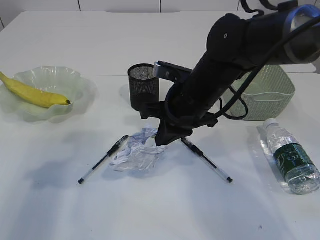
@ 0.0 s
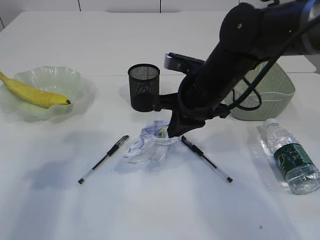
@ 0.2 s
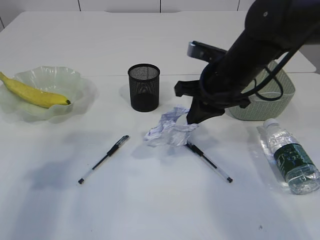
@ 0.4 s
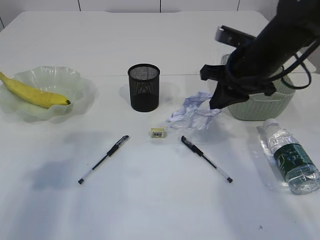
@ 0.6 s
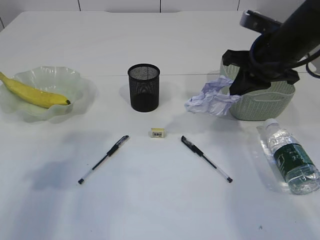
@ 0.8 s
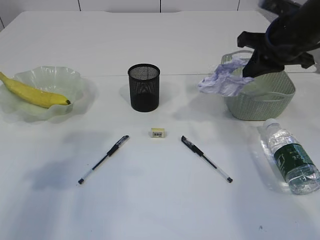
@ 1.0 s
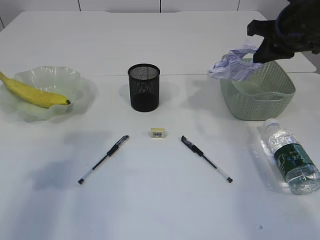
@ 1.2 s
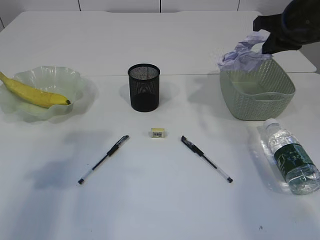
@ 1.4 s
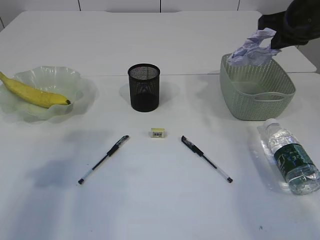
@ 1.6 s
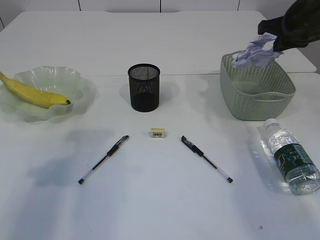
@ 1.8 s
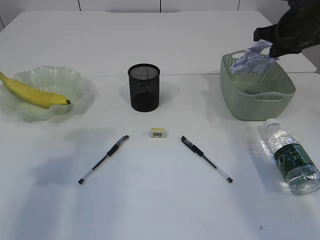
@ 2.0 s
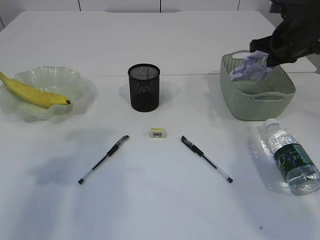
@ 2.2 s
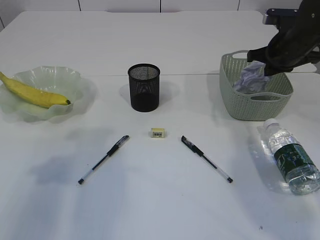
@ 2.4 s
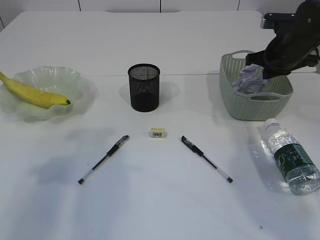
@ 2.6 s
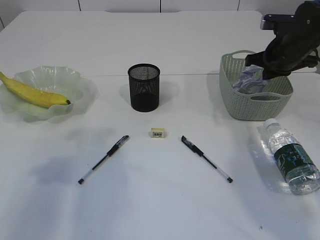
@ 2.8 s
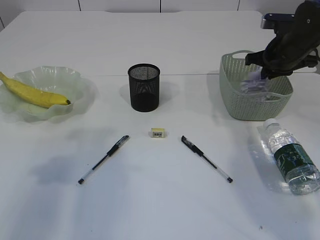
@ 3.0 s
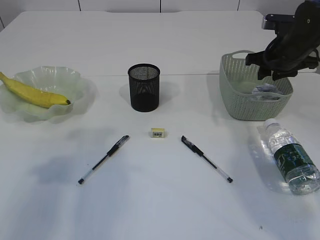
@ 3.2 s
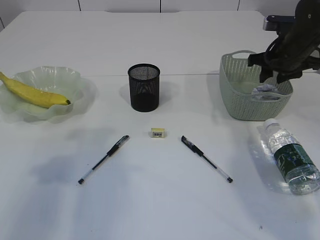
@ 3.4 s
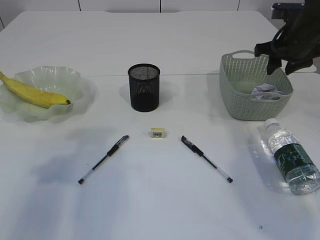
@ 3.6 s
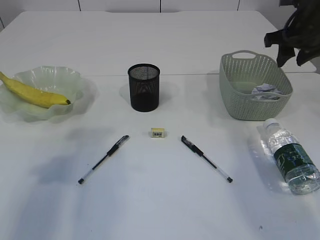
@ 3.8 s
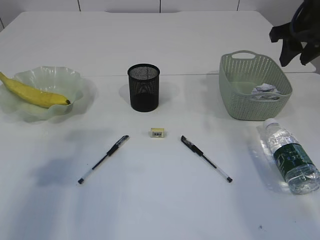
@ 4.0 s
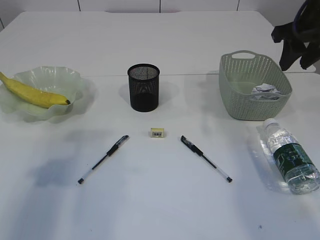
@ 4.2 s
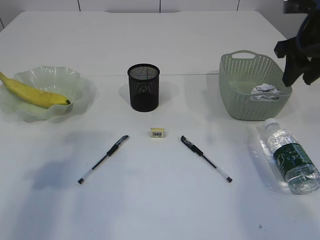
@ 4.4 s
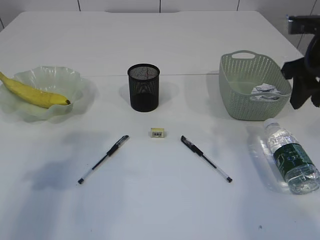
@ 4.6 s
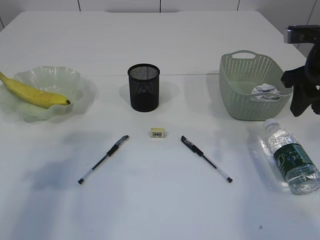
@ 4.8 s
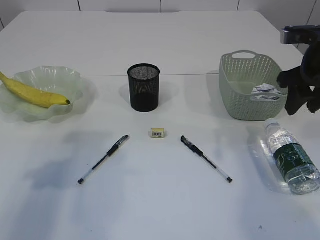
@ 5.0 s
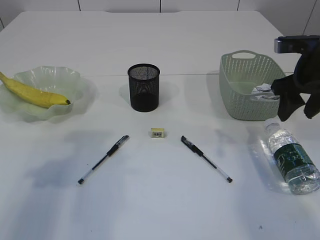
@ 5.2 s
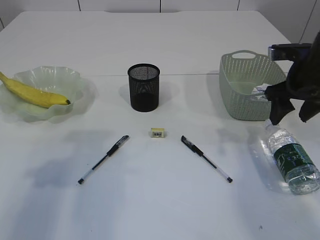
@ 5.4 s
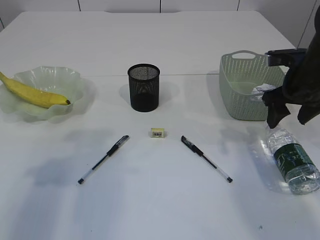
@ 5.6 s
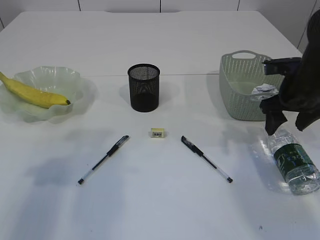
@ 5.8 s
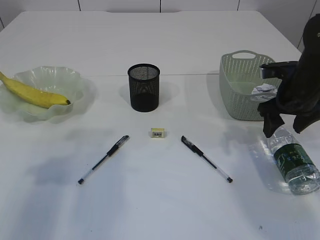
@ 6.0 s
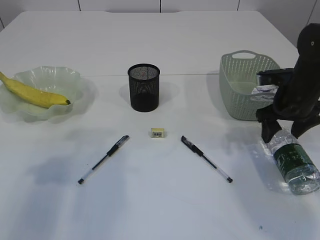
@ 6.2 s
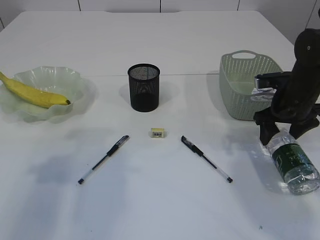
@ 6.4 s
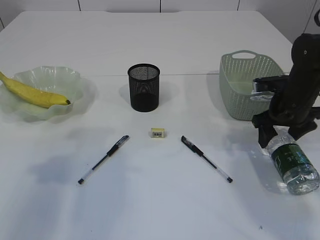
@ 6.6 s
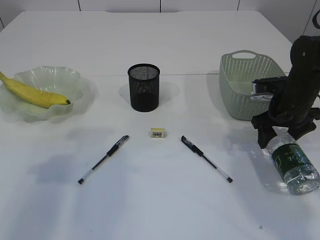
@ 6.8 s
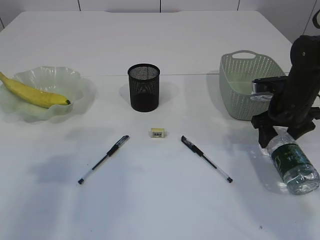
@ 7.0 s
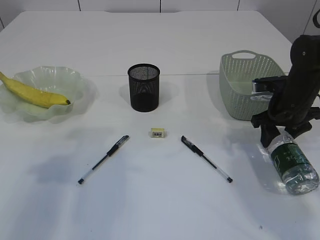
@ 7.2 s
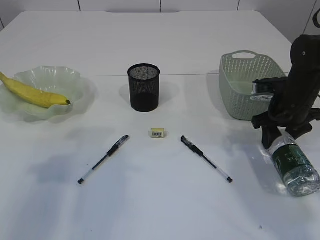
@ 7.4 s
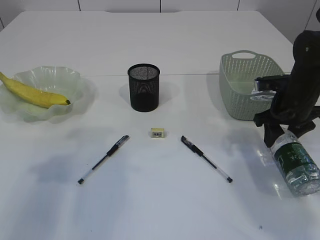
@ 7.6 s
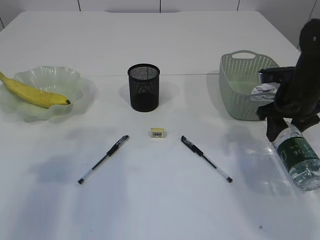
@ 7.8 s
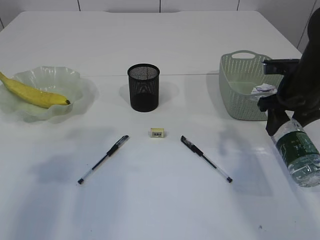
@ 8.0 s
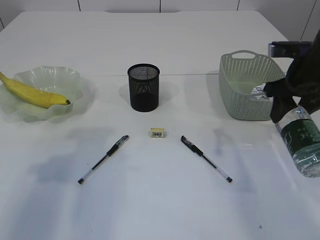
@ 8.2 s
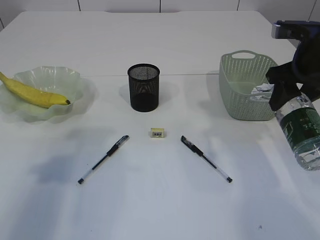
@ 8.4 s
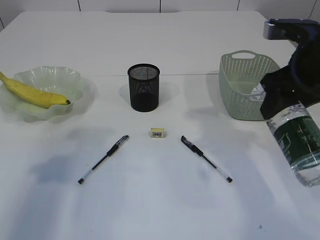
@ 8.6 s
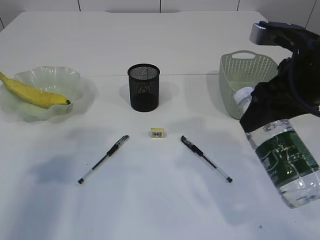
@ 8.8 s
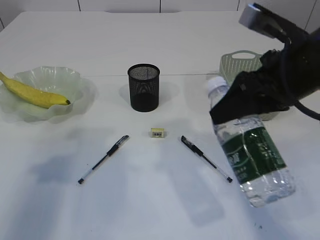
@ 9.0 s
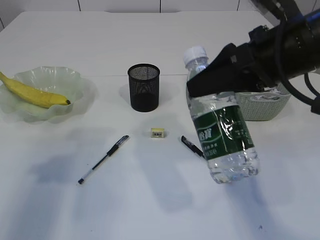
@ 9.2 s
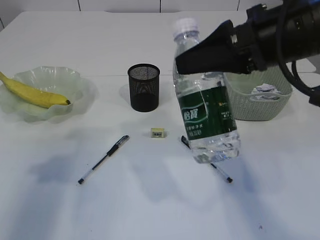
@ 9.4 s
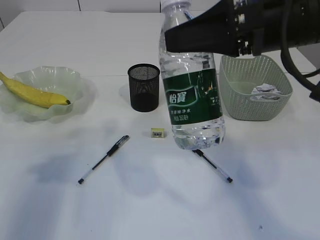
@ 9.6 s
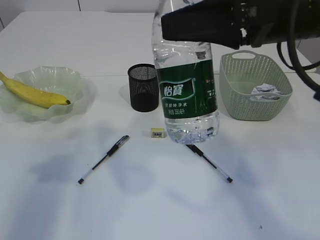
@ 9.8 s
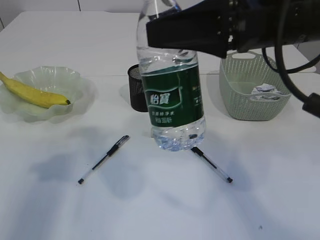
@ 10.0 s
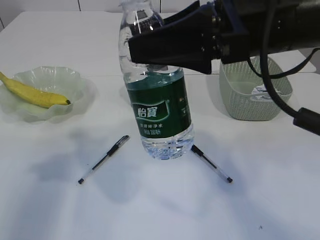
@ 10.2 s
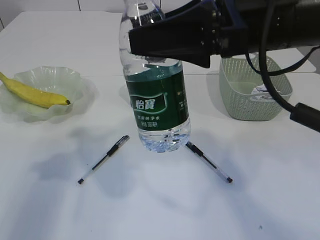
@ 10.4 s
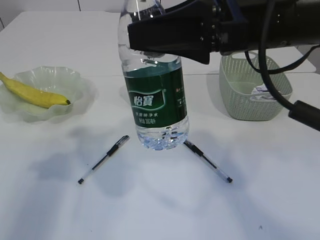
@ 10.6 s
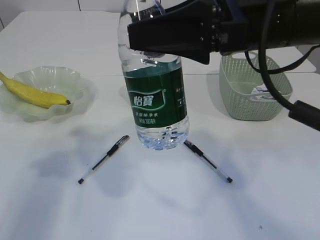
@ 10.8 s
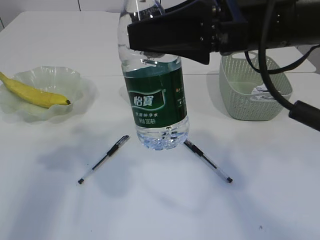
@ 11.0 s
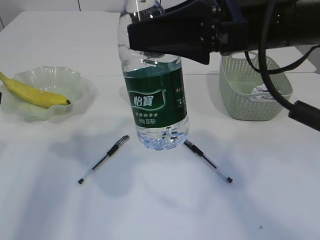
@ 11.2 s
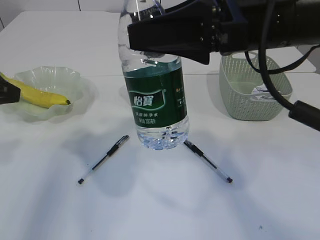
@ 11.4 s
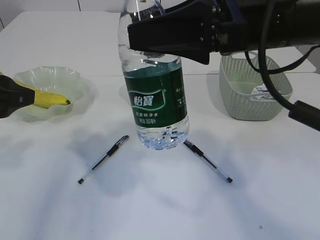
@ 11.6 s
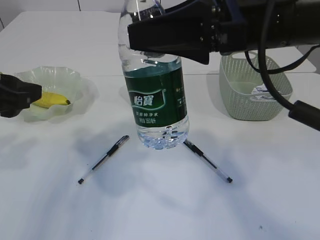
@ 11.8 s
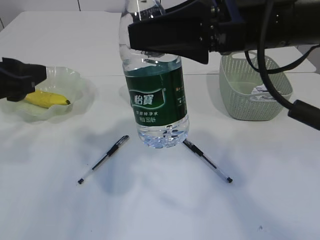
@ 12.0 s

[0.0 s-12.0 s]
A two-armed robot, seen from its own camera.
Step, 0.4 to 3.6 s: Place the waste paper in the basket.
Step, 3.8 to 8.4 s: Pick up the bottle with the right arm.
0.0 to 1.6 s: The right gripper is displaced to the right and upward by approximately 25 cm.
1.6 to 3.0 s: The right gripper travels downward by some 10 cm.
3.0 to 4.4 s: The right gripper heads upward and backward, covering about 10 cm, and opens its fingers.
4.4 to 6.0 s: The right gripper shifts about 10 cm downward, and opens up.
6.0 to 7.6 s: The grippers move only a little.
7.6 to 9.0 s: The right gripper shifts about 20 cm upward, backward and to the left.
9.0 to 10.4 s: The right gripper is displaced to the left by roughly 5 cm.
10.4 to 12.0 s: The left gripper goes approximately 5 cm to the right.

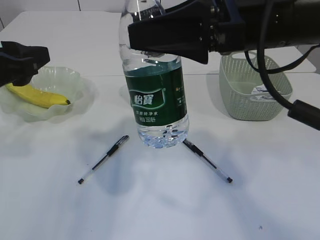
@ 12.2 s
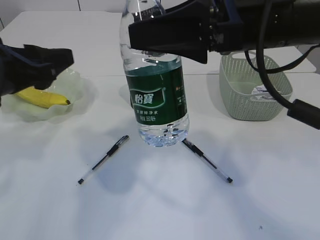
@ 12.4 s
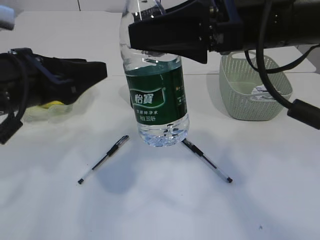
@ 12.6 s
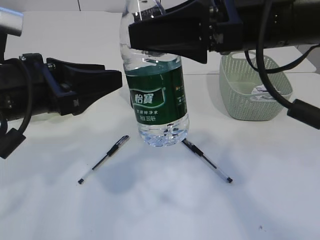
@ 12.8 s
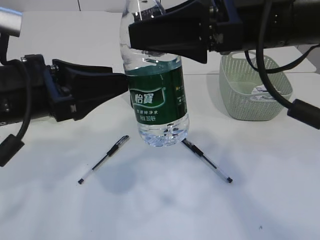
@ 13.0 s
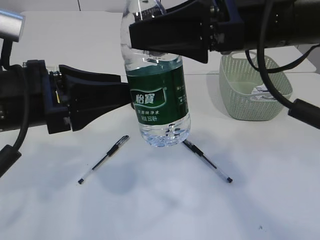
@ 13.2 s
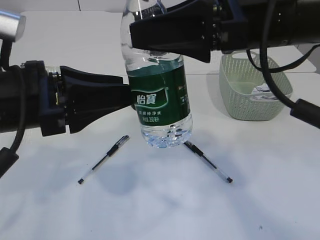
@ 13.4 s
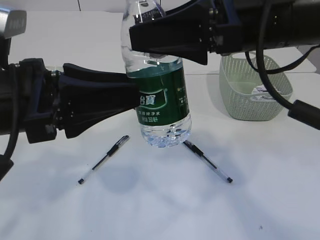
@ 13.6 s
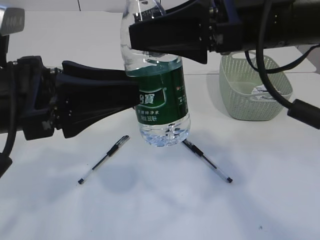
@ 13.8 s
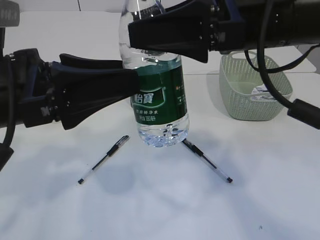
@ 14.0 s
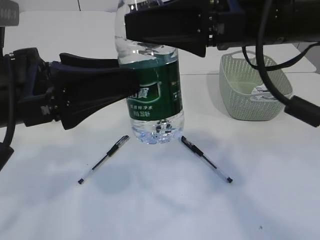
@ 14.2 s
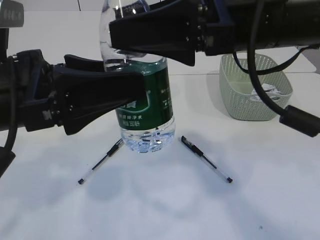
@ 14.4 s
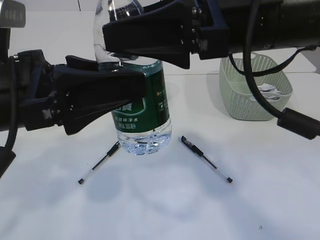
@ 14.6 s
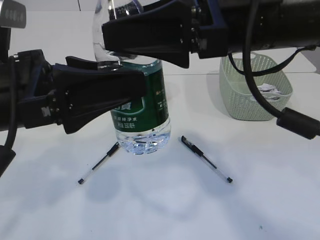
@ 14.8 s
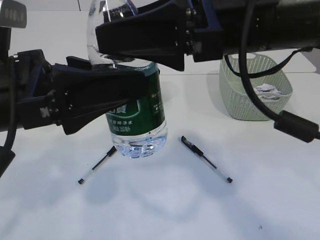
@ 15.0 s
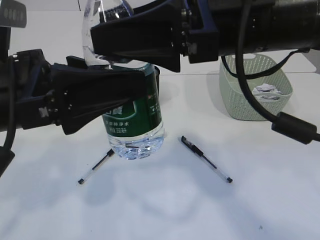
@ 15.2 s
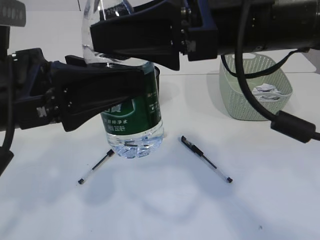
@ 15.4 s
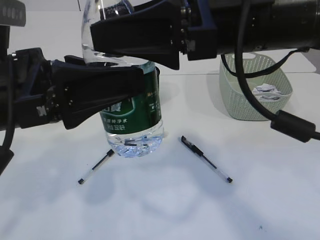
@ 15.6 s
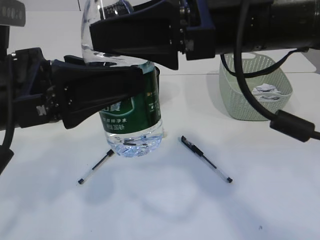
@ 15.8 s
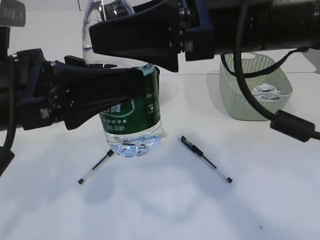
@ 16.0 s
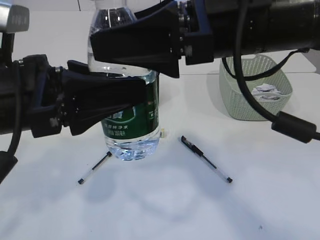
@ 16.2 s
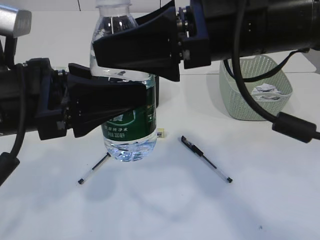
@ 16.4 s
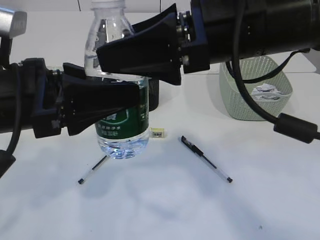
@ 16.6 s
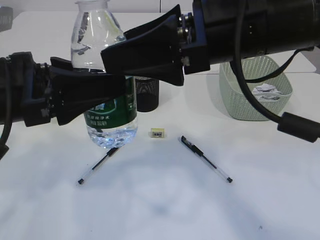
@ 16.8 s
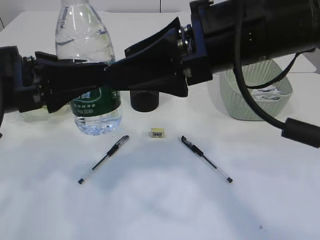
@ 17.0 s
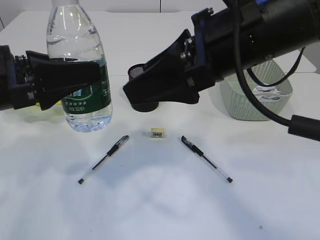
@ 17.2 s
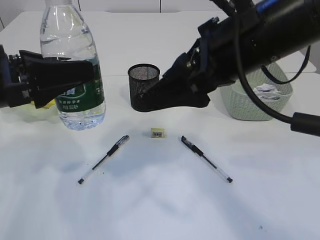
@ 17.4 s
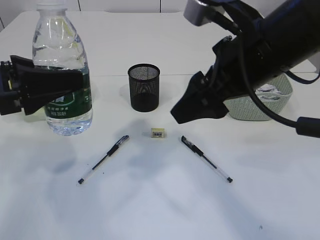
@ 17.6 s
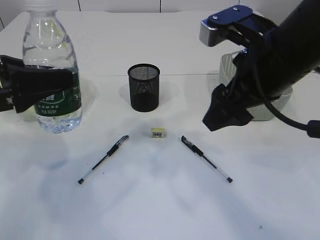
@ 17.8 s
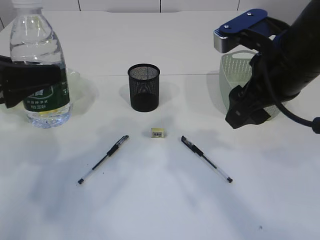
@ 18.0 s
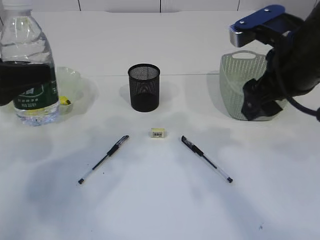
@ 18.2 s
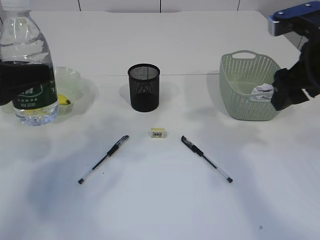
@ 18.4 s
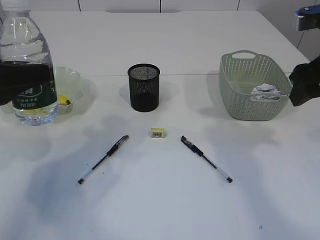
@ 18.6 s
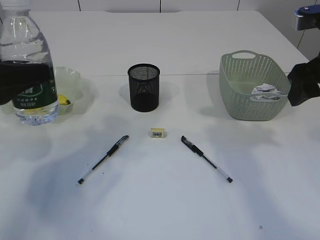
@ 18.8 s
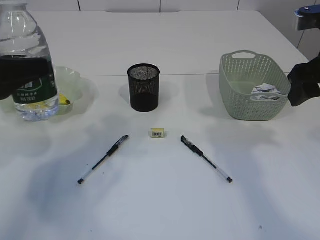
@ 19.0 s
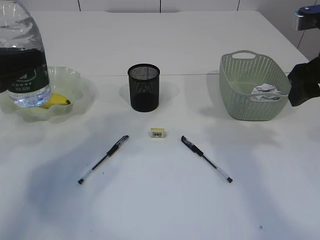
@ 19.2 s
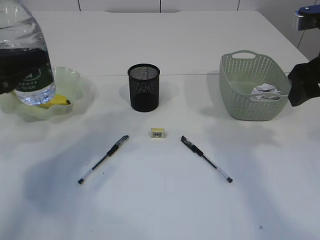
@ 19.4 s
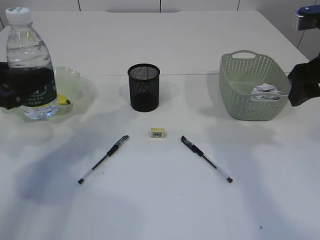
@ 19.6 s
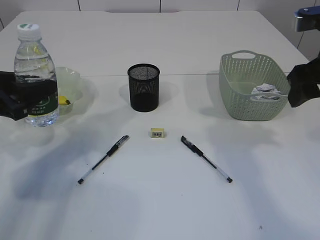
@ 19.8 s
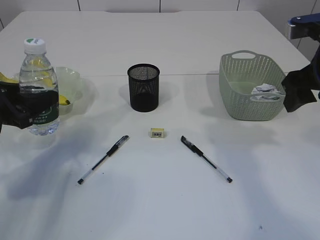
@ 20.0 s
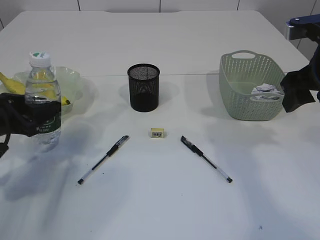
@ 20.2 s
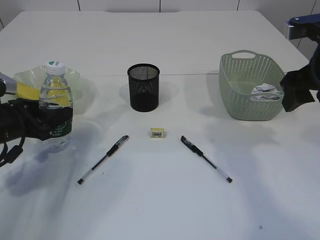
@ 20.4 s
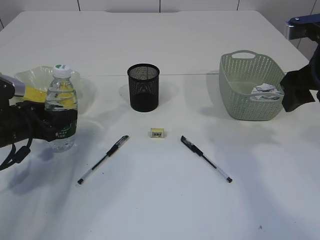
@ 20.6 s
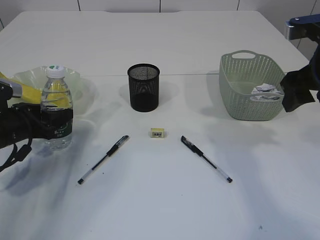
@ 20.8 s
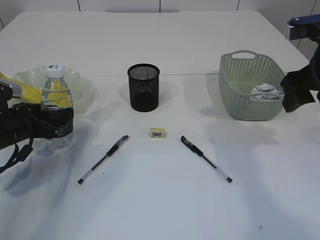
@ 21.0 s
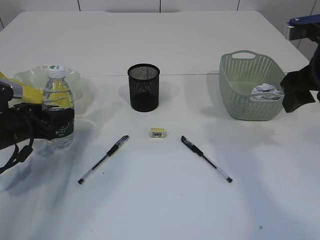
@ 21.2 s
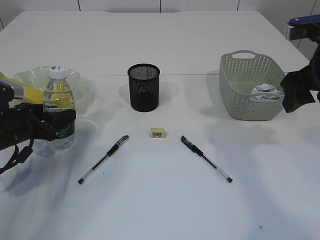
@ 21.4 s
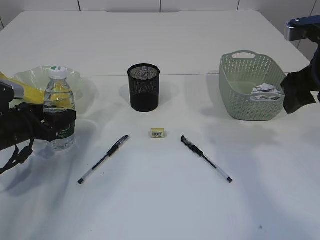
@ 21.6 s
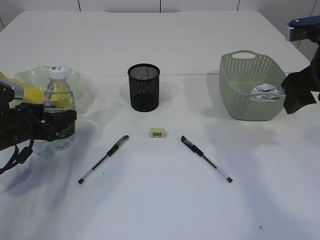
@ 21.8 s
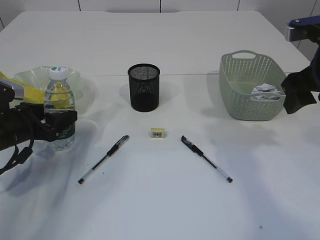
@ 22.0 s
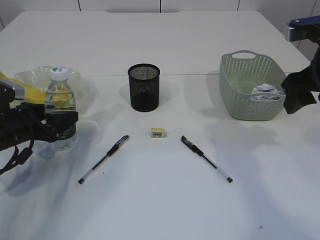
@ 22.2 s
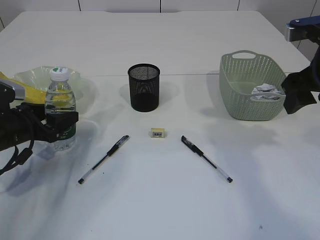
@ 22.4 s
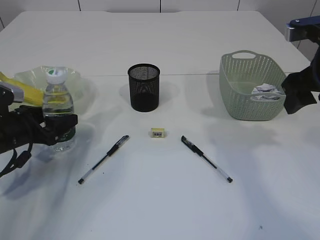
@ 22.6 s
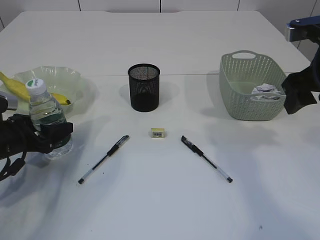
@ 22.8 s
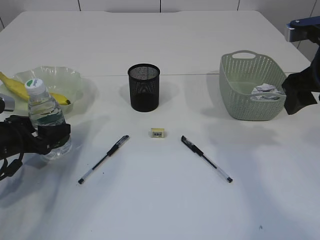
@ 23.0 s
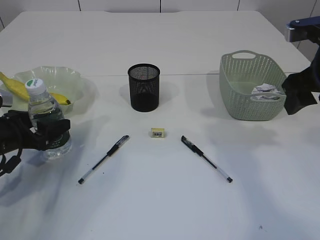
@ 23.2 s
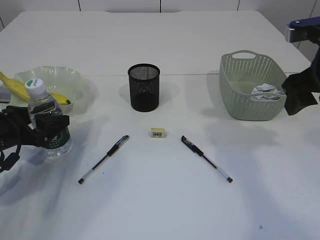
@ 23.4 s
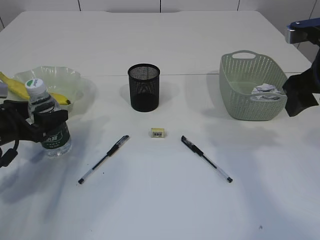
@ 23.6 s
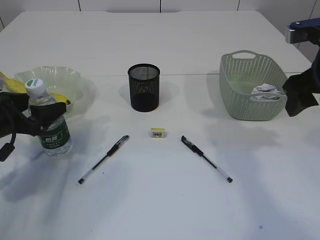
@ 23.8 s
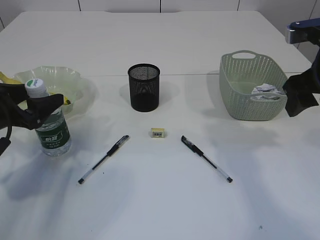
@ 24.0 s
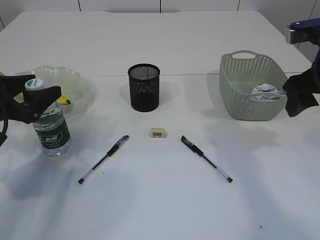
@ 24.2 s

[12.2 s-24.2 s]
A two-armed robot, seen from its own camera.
Step, 12.2 to 17.0 s: transfer the bottle to the left arm.
12.2 to 13.8 s: The left gripper heads to the right, covering about 5 cm.
15.2 to 16.6 s: The grippers stay close to where they were, moving slightly.
16.6 to 18.2 s: The left gripper moves to the left, some 10 cm, while the right gripper travels to the right by some 10 cm.
18.2 to 19.8 s: The right gripper heads to the right, covering roughly 10 cm, while the left gripper moves downward, some 5 cm.
19.8 to 21.2 s: The left gripper goes some 10 cm downward.
21.2 to 22.6 s: The two grippers keep their place.
22.6 to 24.2 s: The left gripper goes some 5 cm upward.
